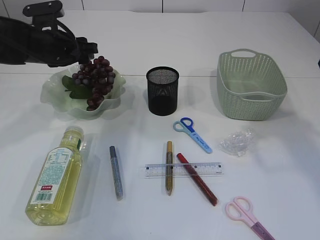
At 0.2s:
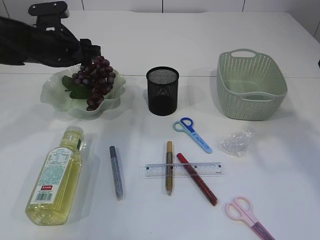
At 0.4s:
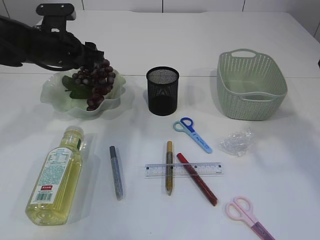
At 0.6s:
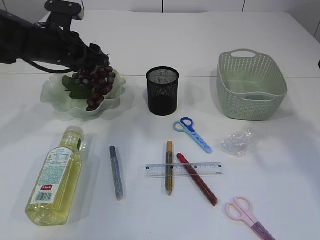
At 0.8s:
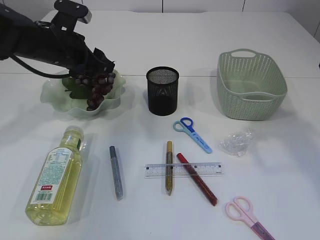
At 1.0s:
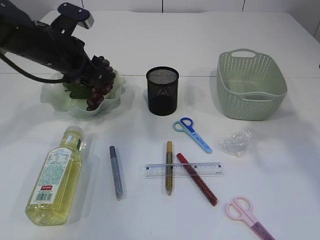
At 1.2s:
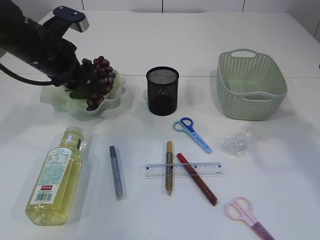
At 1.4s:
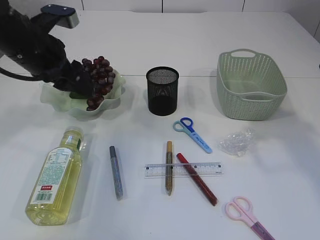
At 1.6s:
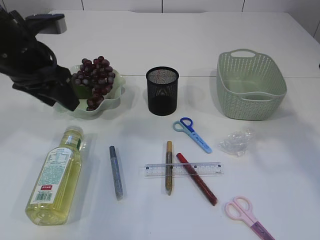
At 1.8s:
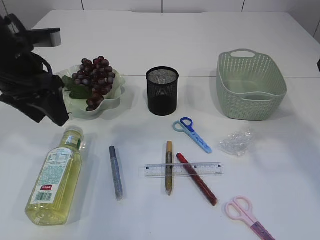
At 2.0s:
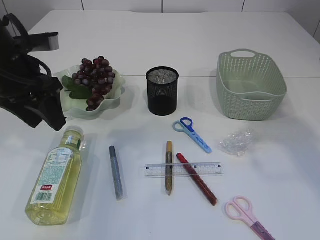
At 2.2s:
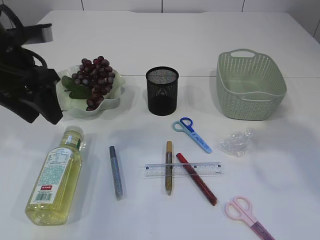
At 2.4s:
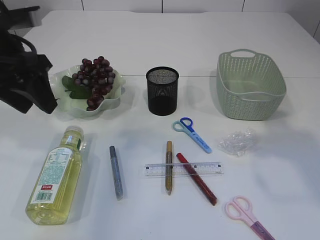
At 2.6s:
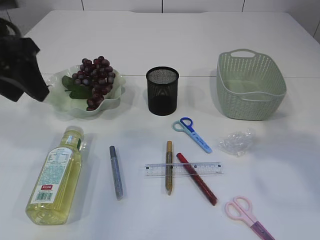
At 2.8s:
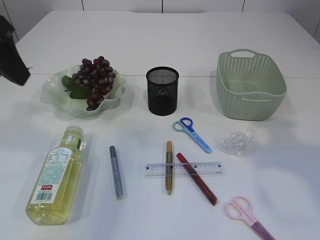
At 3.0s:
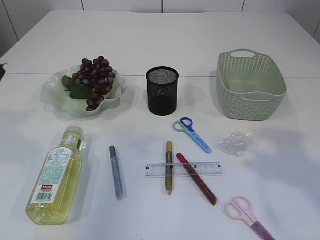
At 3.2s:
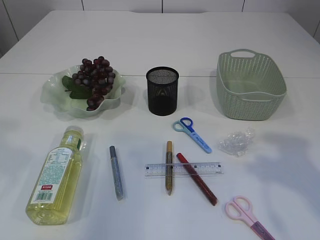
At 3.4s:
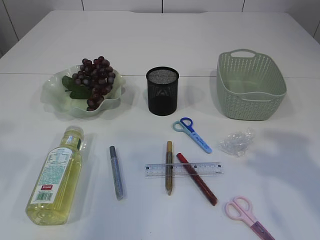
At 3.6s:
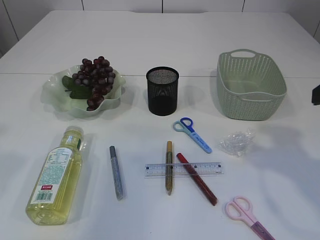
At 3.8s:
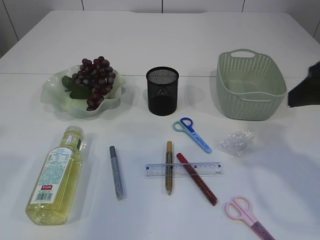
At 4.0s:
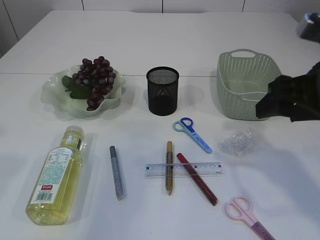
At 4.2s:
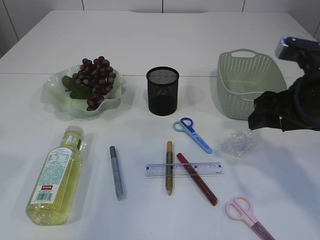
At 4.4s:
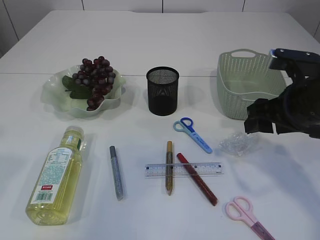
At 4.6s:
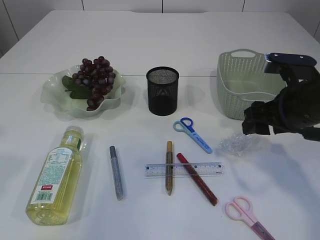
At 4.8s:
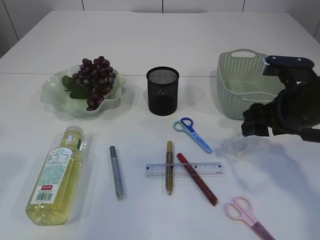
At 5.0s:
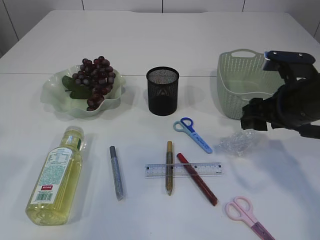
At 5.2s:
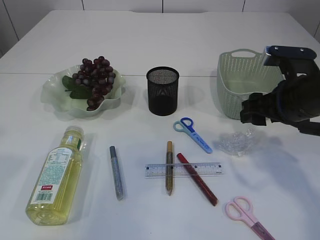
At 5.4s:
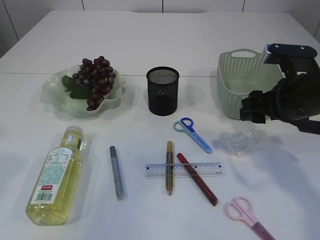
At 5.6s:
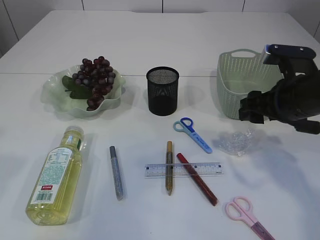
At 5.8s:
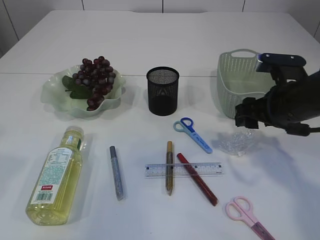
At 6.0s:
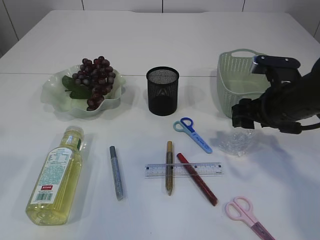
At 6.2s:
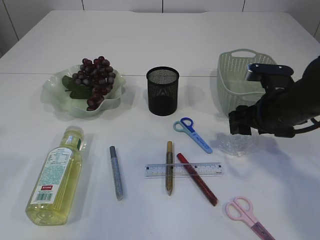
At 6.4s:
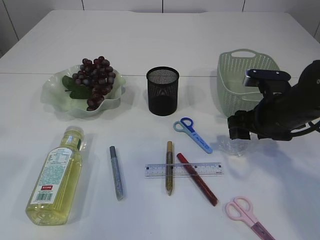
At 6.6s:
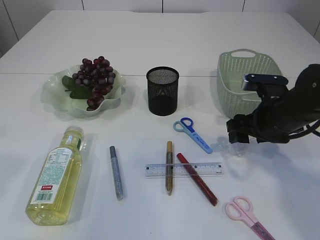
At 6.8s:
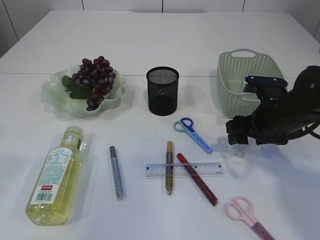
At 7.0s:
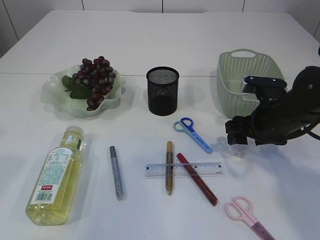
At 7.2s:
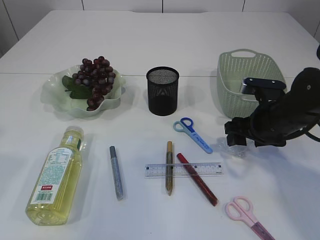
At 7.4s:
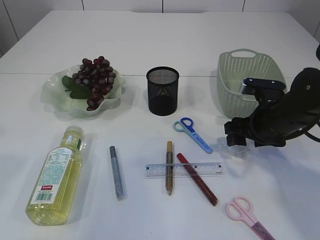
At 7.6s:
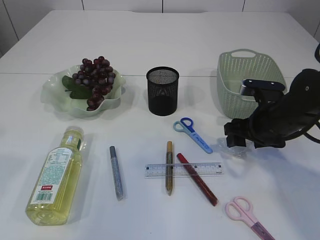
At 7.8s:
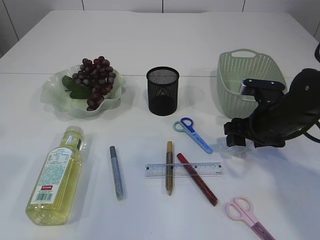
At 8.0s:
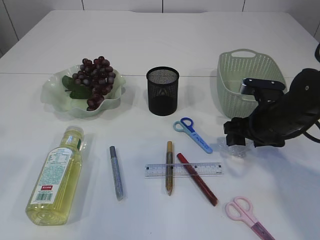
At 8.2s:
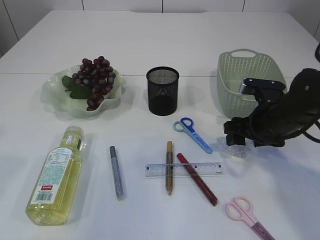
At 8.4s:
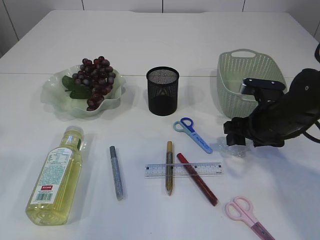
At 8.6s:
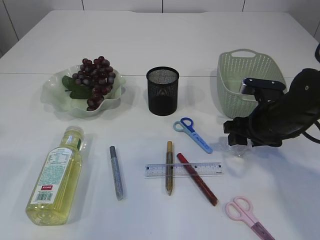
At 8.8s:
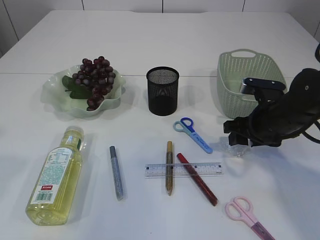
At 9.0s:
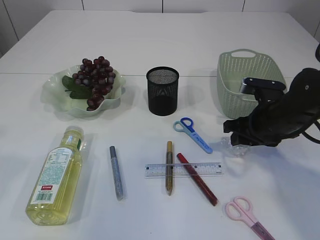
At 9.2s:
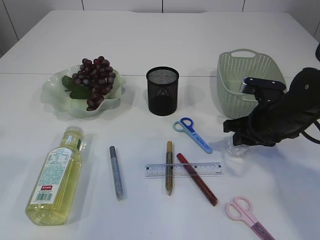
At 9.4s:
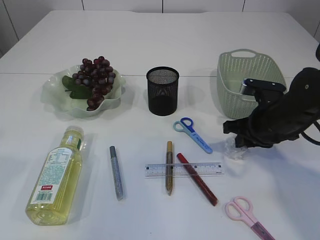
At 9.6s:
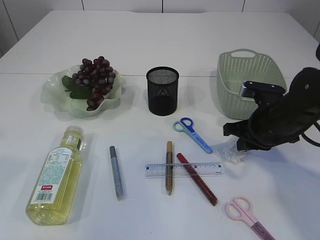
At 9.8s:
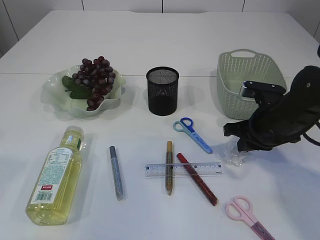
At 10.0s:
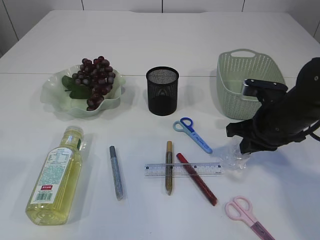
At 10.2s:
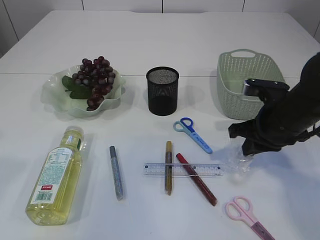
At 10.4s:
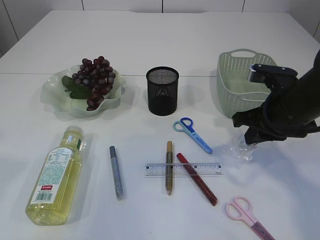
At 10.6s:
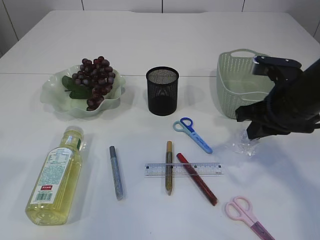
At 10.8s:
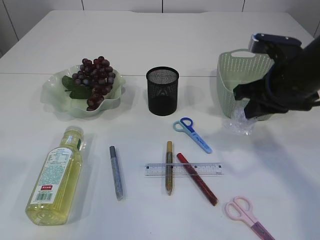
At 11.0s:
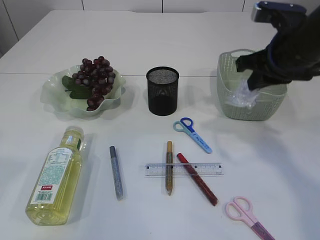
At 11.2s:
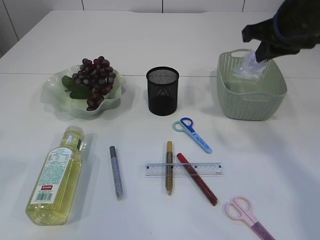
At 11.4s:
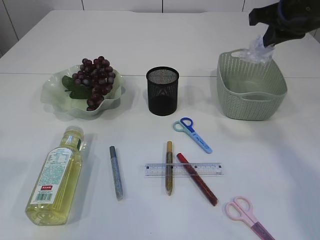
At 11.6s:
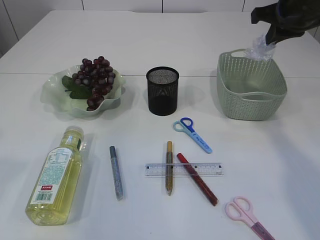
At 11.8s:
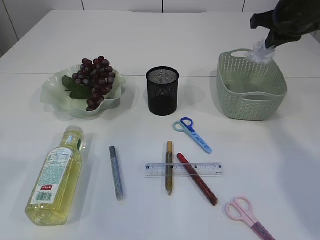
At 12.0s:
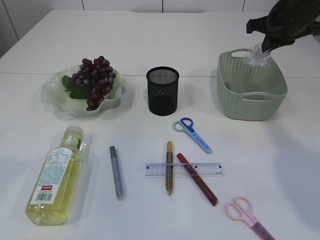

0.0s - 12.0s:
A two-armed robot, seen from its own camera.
Step, 0.8s - 10.8s: Pick up the plastic.
0.0s - 1.6s: The left gripper heads backward and upward, covering some 10 cm.
1.6s - 3.0s: The right gripper goes some 10 cm backward, while the left gripper is displaced upward and backward by roughly 15 cm.
3.0s - 4.4s: The left gripper travels backward by approximately 5 cm, while the right gripper goes roughly 20 cm downward and forward.
4.4s - 6.0s: The right gripper ends up approximately 5 cm from where it was.
6.0s - 7.6s: There are only small adjustments of the grippers.
7.6s - 9.0s: The right gripper closes.
9.0s - 10.4s: The right gripper heads upward, covering roughly 5 cm, and closes up.
10.4s - 12.0s: The right gripper goes about 15 cm forward and upward.

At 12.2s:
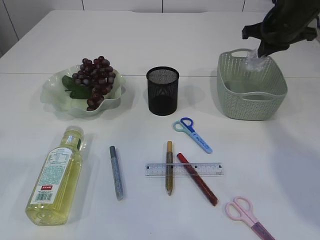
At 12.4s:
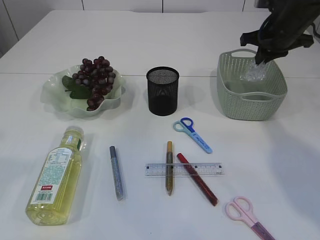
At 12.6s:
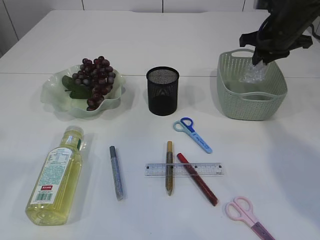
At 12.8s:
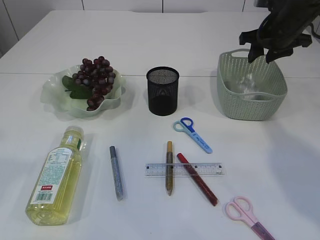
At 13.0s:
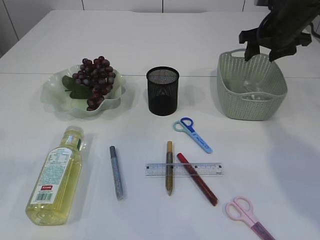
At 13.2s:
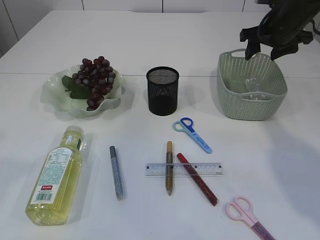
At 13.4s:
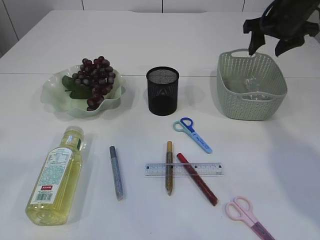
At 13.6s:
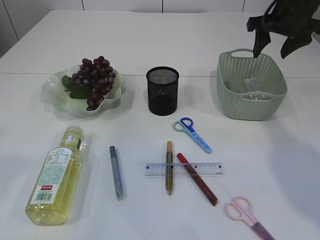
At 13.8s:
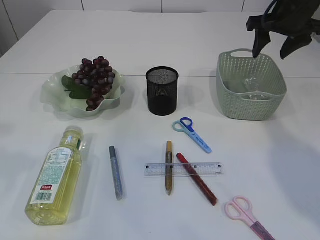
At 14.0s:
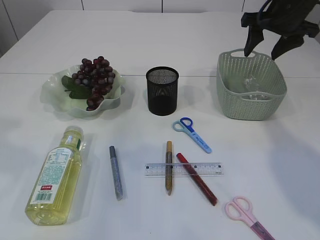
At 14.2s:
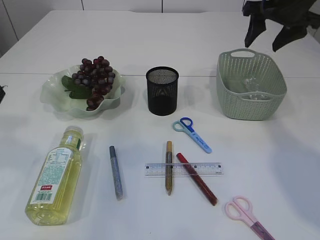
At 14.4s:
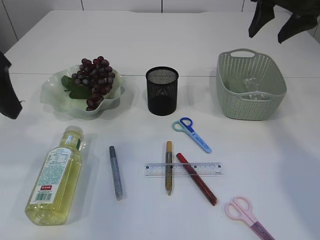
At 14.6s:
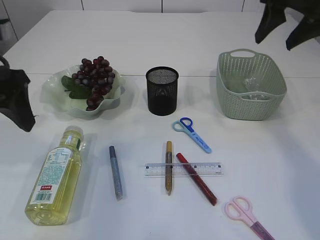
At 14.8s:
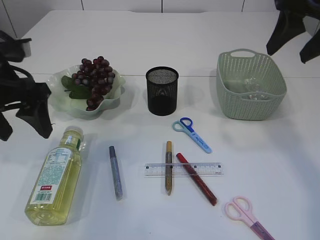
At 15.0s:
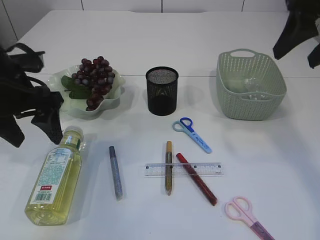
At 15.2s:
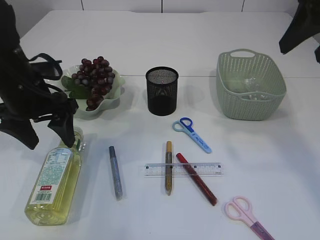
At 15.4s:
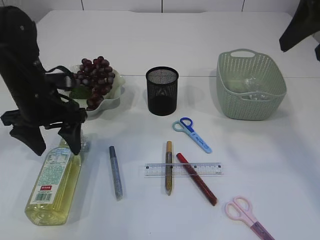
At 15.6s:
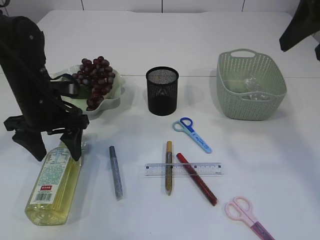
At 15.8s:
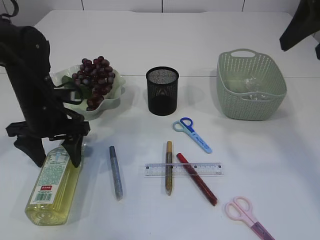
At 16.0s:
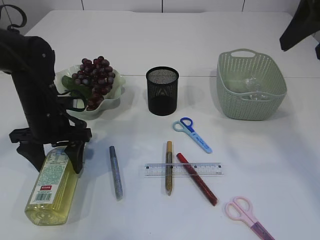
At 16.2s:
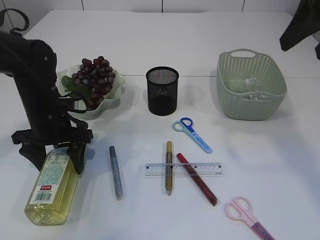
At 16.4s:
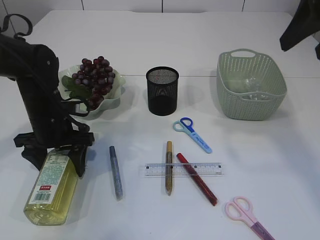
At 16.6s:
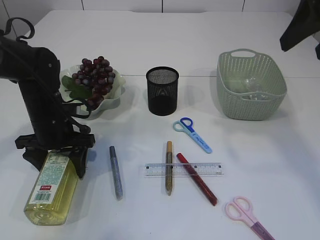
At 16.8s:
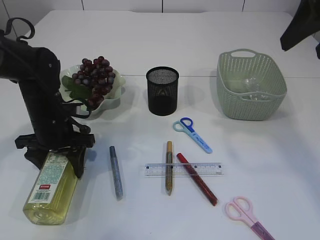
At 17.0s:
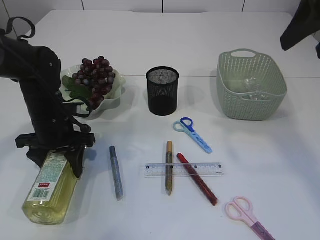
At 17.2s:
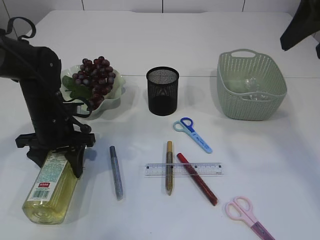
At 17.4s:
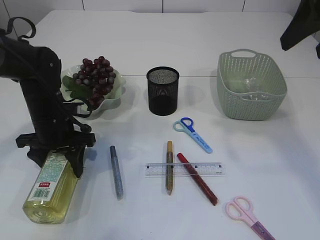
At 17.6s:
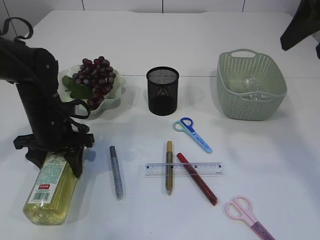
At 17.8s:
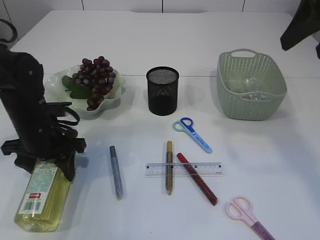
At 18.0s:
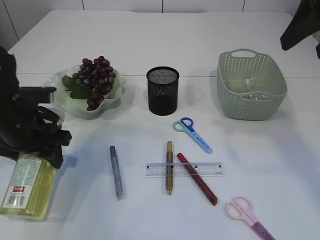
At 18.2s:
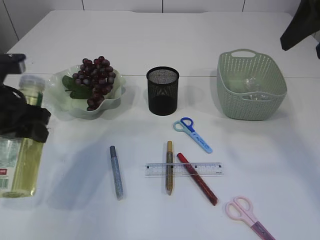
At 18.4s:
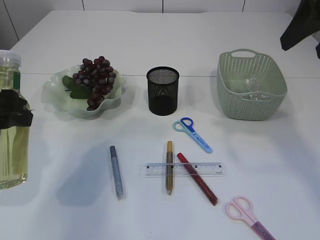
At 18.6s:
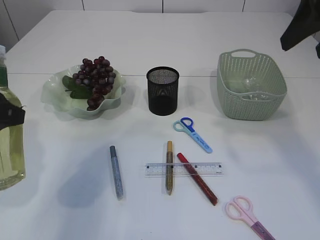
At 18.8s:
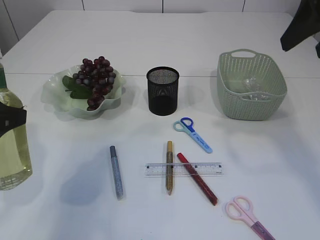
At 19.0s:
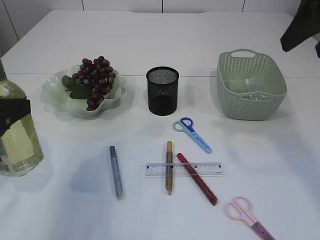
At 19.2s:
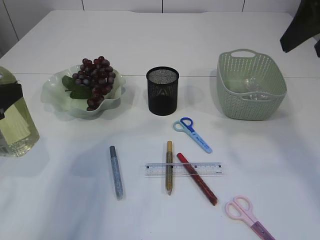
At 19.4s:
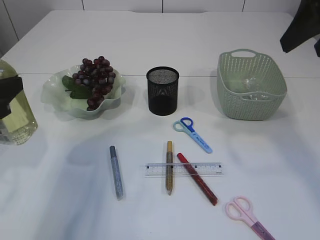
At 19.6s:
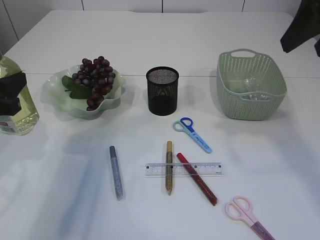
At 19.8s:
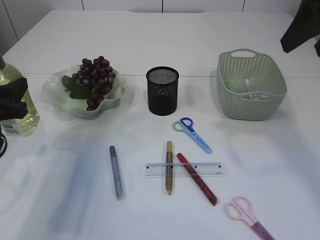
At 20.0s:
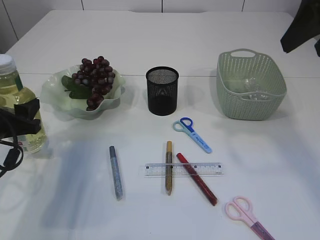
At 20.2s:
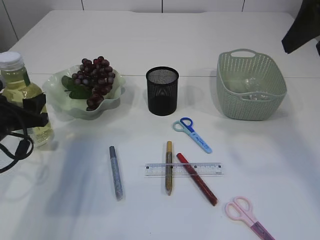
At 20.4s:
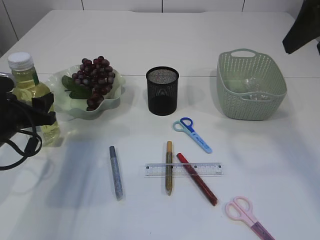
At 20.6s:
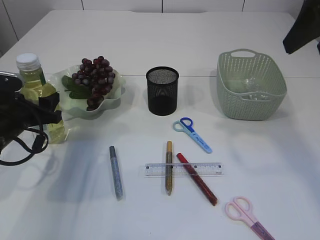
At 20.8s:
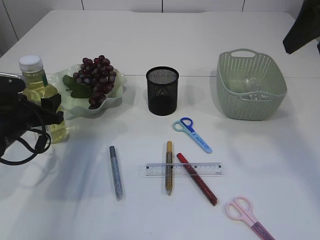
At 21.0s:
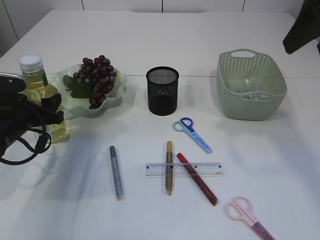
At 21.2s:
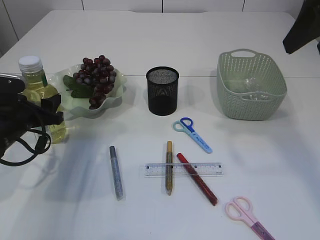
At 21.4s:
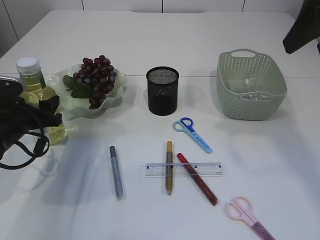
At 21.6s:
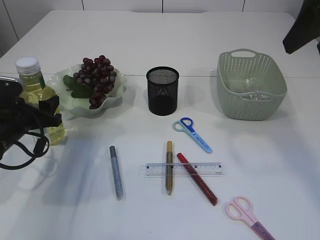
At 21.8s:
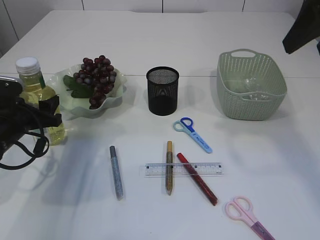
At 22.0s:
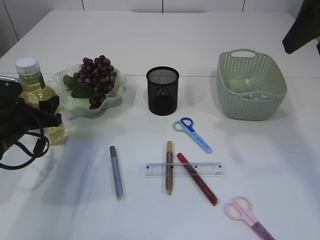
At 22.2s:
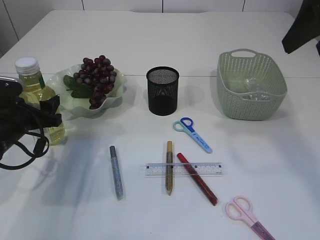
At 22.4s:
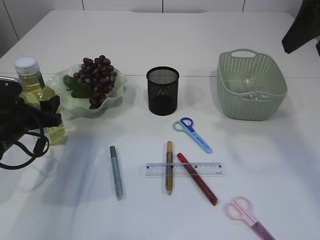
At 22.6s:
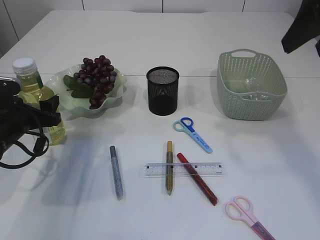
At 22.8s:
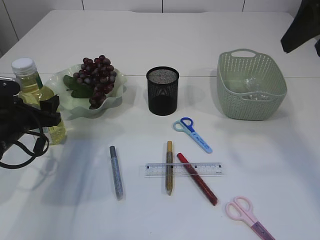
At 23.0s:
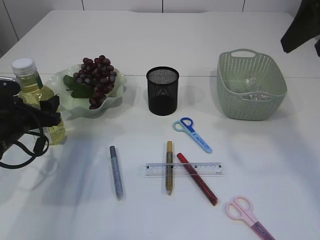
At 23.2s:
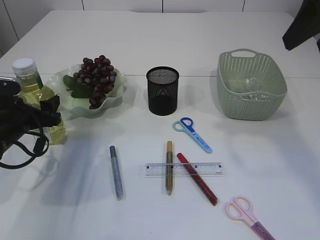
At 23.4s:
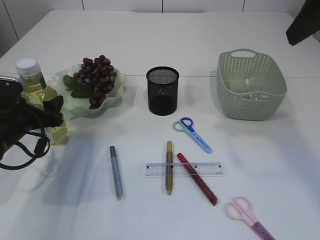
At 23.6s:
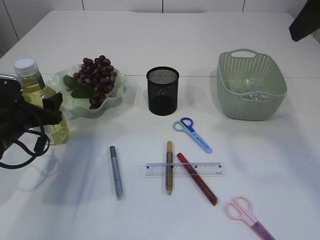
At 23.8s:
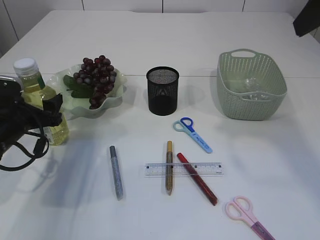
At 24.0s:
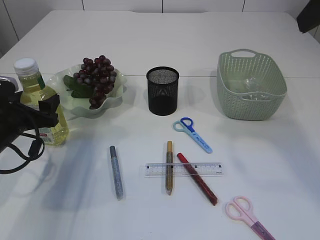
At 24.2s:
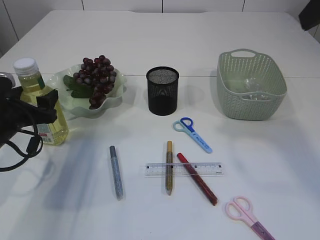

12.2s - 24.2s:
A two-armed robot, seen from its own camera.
Step, 12.2s - 13.8s: Place the plastic in the basket.
Step, 14.0s - 18.0s: Pick up the bottle with the left arm.
12.2s - 13.8s: The right gripper opens its fingers.
13.8s - 15.2s: The right gripper moves backward and upward, about 20 cm. Meanwhile the left gripper moves downward and forward, roughly 25 cm.
15.2s - 16.6s: The left gripper shifts approximately 10 cm downward.
16.6s - 18.2s: The left gripper travels upward and backward by roughly 15 cm.
18.2s - 19.8s: The left gripper reaches about 10 cm backward, then returns.
19.8s - 21.2s: The left gripper heads downward and forward, covering some 10 cm.
21.2s - 22.6s: Neither gripper changes place.
22.6s - 24.2s: There are only small adjustments of the grippers.
